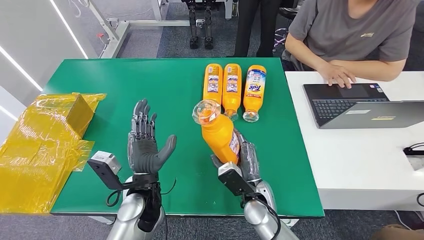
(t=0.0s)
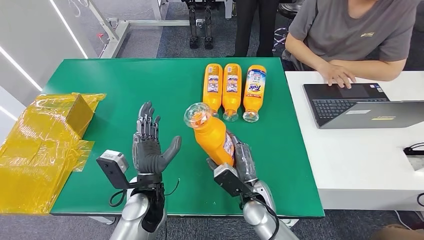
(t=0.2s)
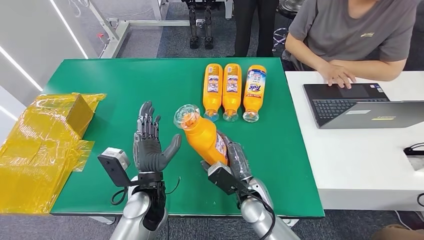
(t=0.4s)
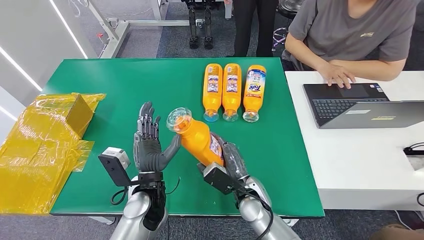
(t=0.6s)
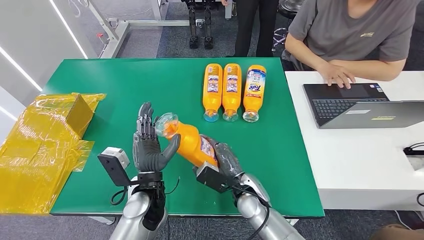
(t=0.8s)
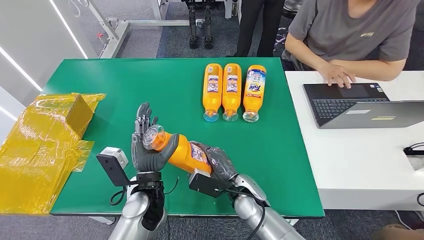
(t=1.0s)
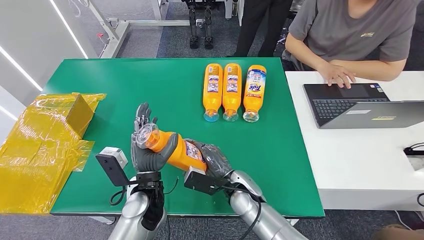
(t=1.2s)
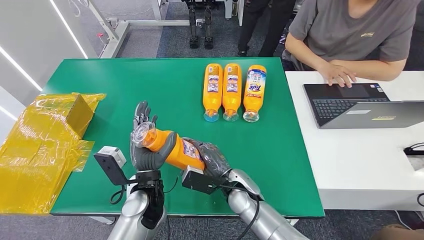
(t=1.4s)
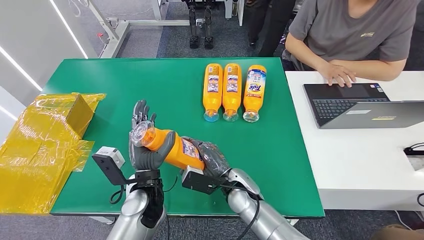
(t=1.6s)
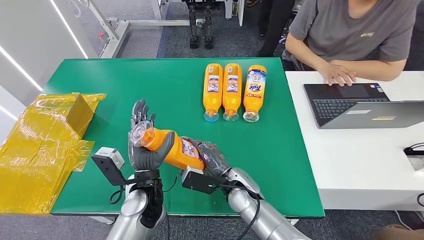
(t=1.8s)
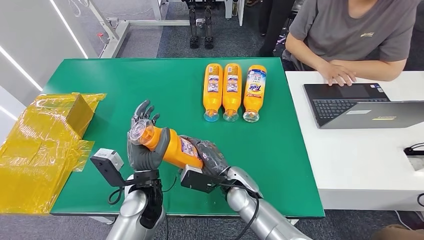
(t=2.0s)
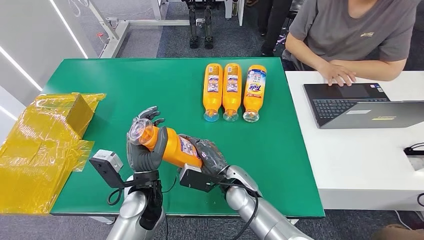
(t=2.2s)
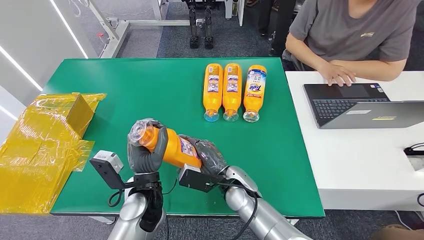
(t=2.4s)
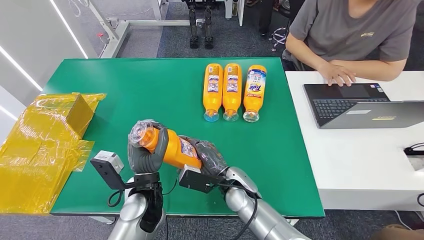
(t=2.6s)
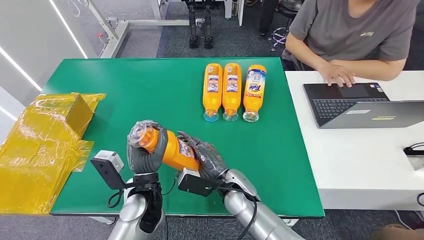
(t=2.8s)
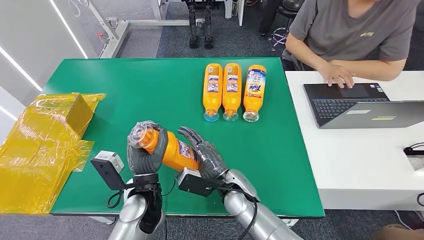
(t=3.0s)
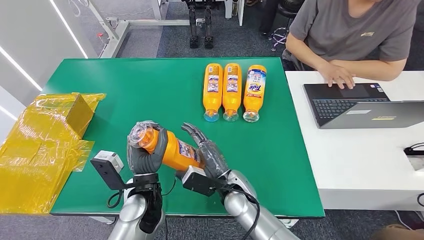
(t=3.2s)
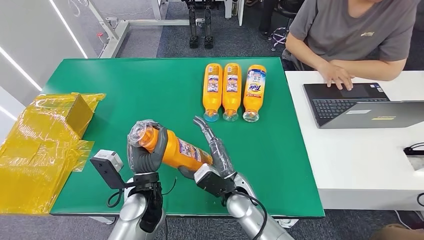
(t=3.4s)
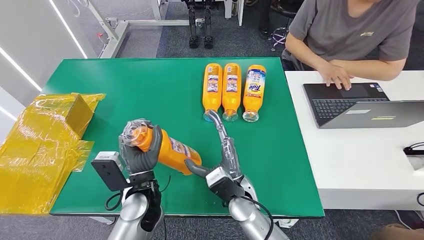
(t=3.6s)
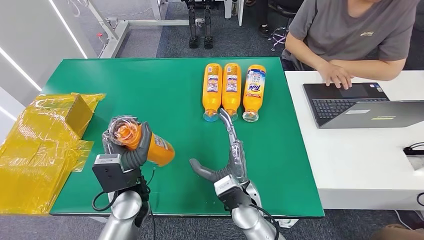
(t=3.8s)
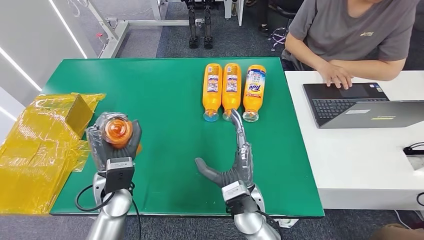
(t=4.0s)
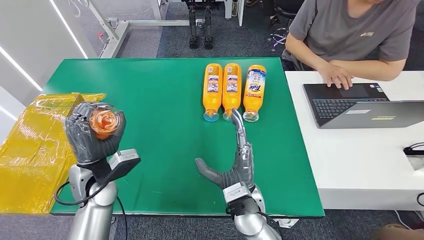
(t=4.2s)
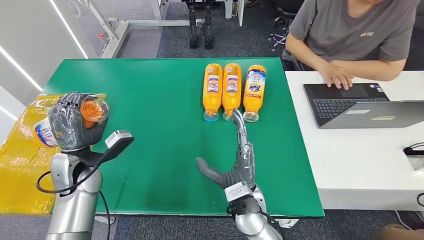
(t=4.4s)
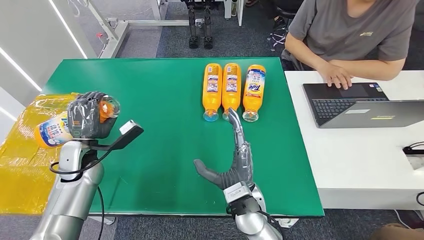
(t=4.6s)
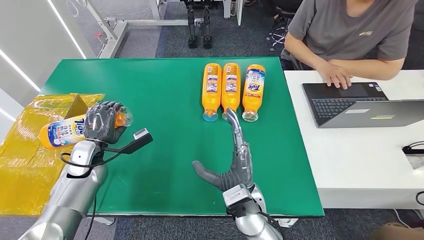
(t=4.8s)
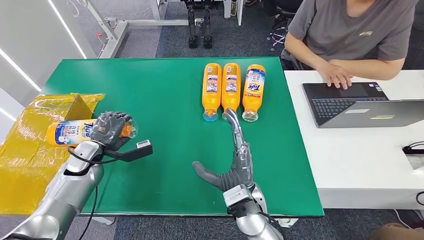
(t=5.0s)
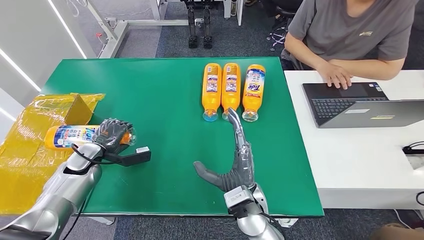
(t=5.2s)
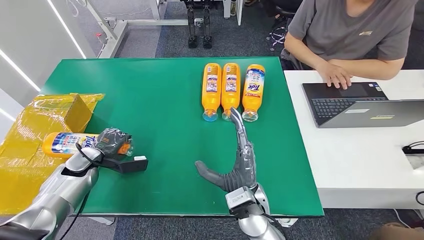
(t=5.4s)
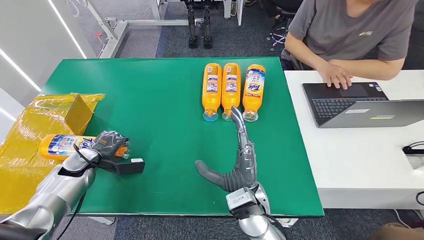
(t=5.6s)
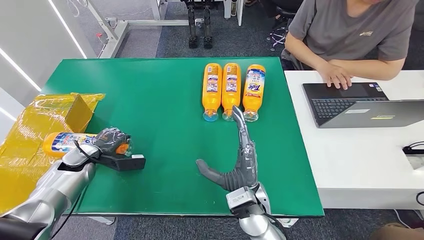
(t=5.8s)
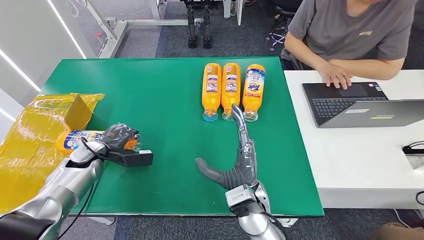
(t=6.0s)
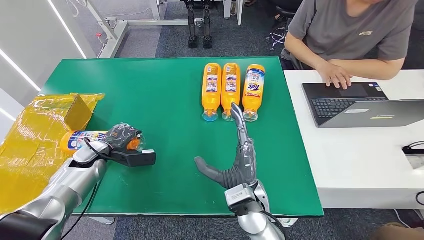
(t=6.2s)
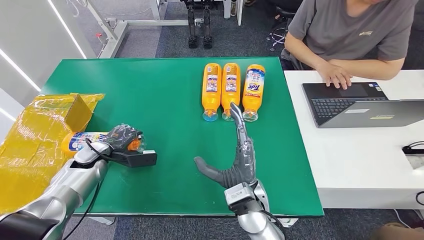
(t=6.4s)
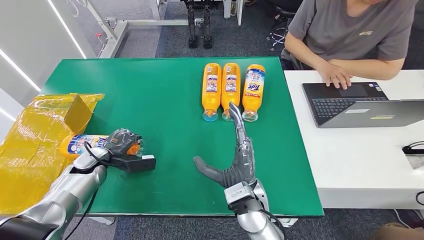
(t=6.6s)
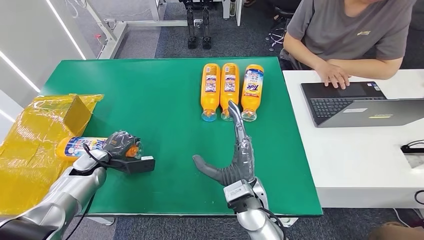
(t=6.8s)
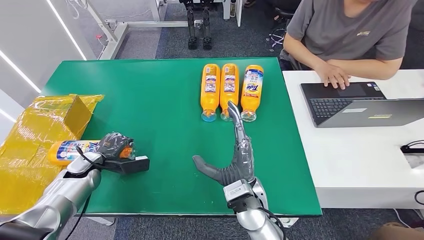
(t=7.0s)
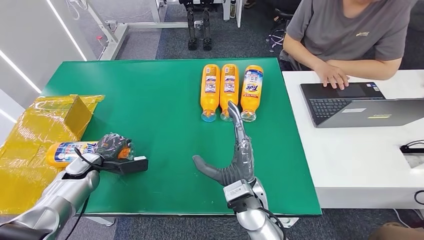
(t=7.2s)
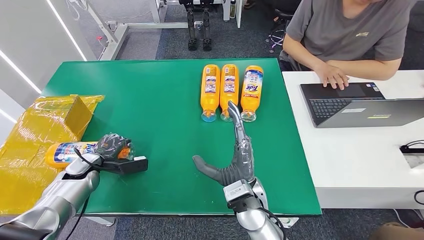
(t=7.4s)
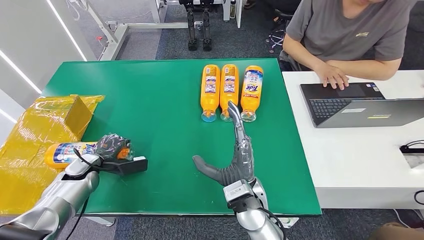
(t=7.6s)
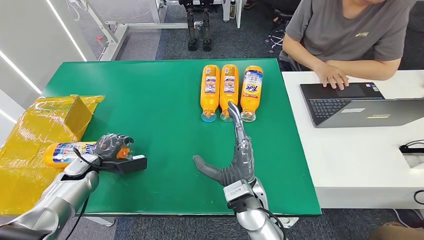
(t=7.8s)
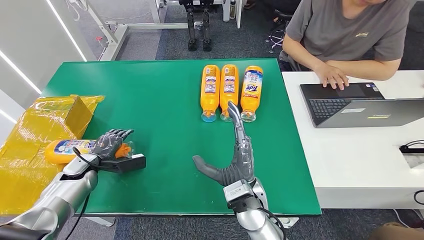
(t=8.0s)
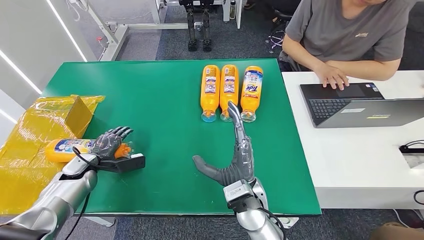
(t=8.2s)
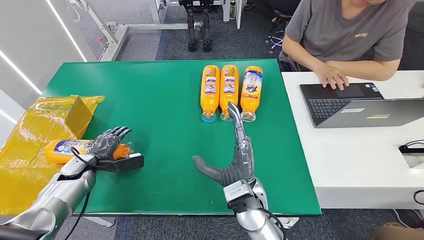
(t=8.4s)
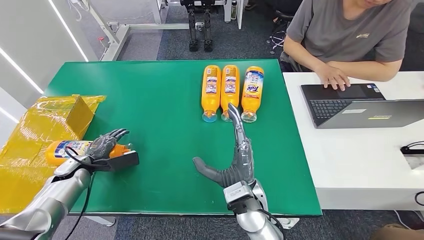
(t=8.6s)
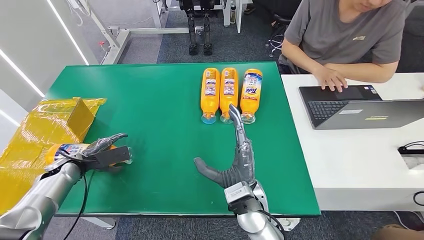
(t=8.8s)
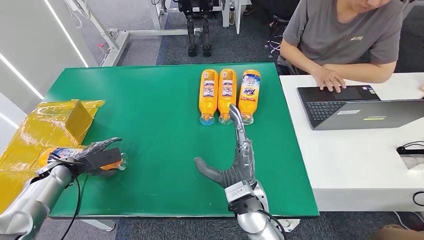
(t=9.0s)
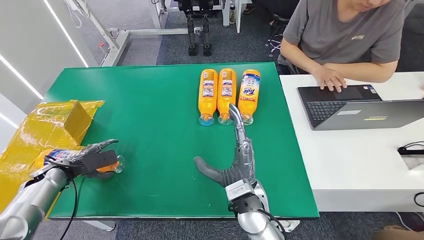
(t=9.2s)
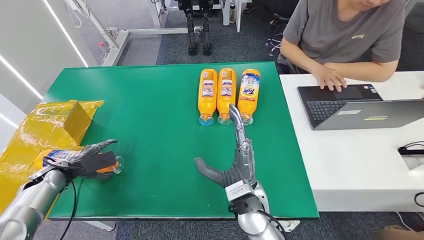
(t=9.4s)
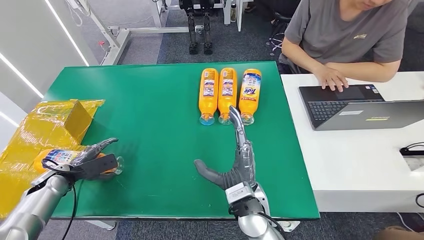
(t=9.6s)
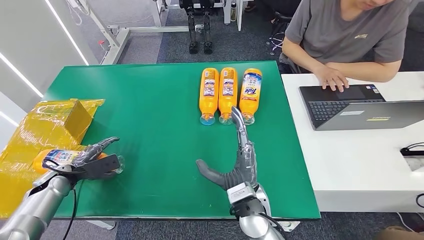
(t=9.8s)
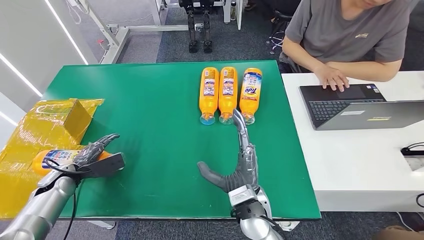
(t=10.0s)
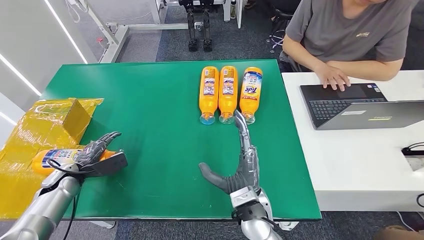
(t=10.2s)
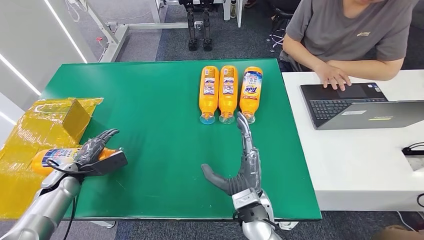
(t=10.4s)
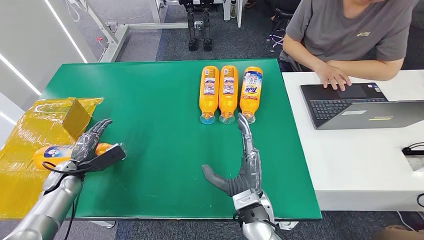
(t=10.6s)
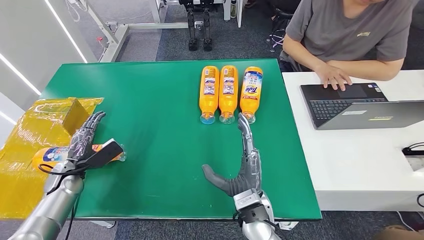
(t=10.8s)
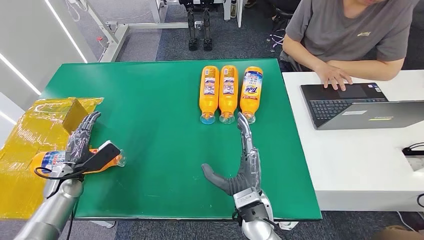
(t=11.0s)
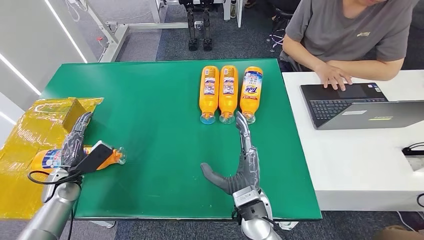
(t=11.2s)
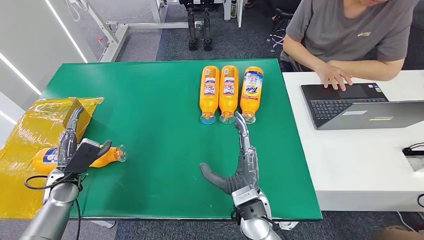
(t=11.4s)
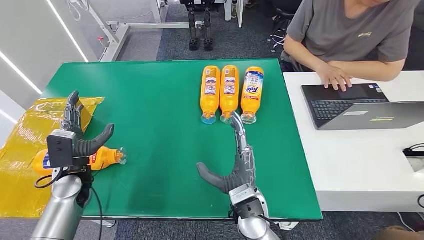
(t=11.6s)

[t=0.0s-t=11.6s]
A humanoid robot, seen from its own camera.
Step, t=0.0s to t=11.4s: Turn the bottle to the front side.
t=0.0s to t=1.4s: The right hand moves about 5 cm.
t=1.4s to t=2.8s: Neither hand changes place.
t=2.8s to t=4.4s: The right hand moves backward, some 5 cm. Meanwhile the left hand travels to the left by about 15 cm.
t=4.4s to t=5.8s: The left hand is displaced downward, to the left and forward by about 15 cm.
t=5.8s to t=7.2s: The hands stay close to where they were, moving slightly.
t=7.2s to t=8.8s: The left hand moves to the left, approximately 5 cm.
t=8.8s to t=10.2s: The hands stay close to where they were, moving slightly.
t=10.2s to t=11.6s: The left hand heads to the right and upward, covering some 10 cm.
